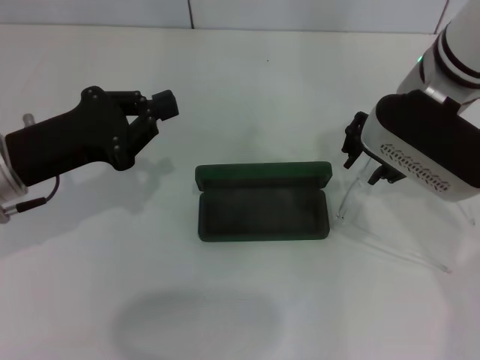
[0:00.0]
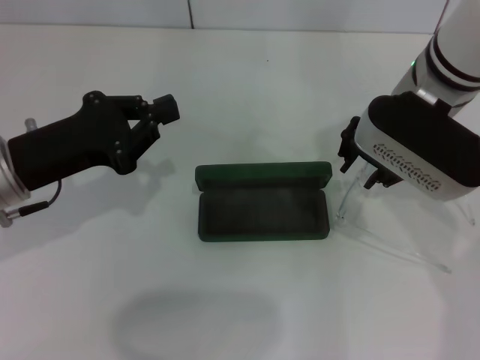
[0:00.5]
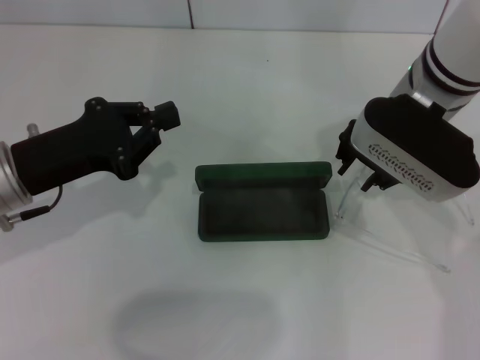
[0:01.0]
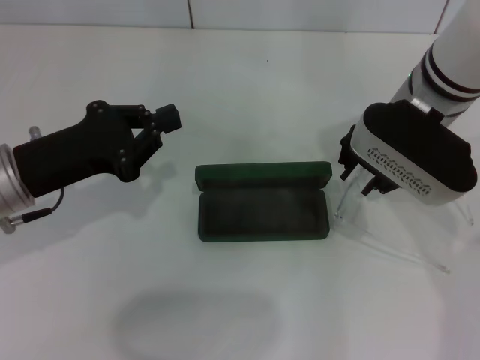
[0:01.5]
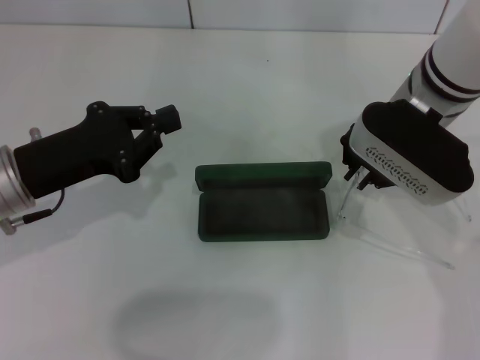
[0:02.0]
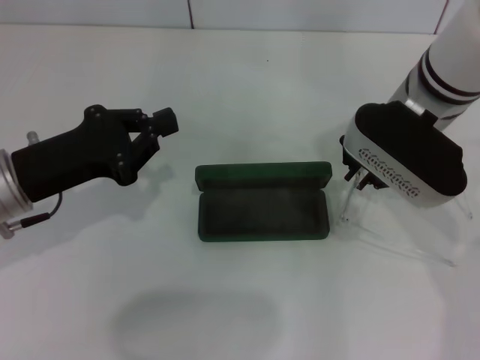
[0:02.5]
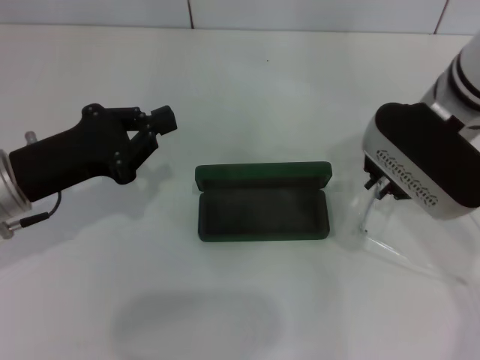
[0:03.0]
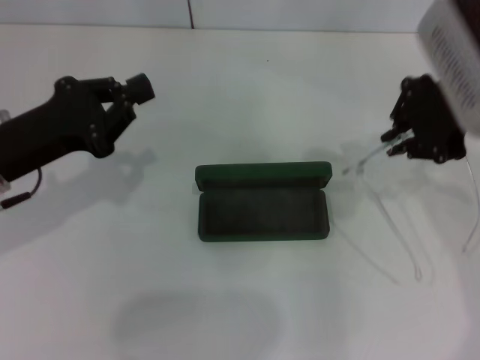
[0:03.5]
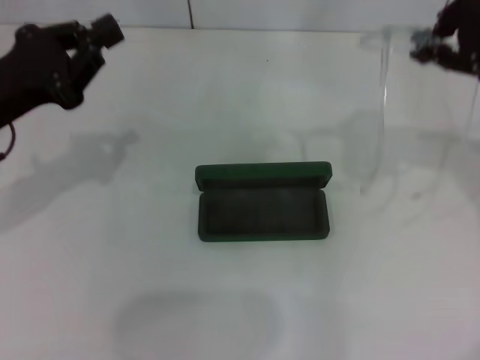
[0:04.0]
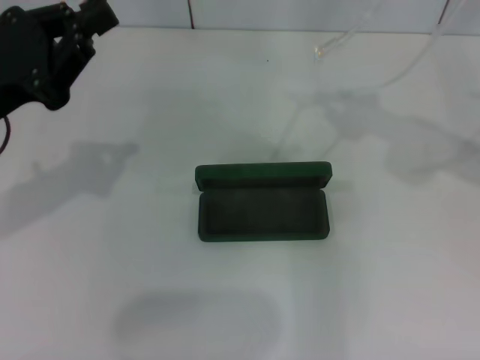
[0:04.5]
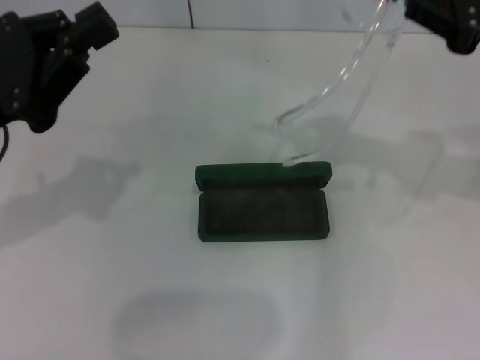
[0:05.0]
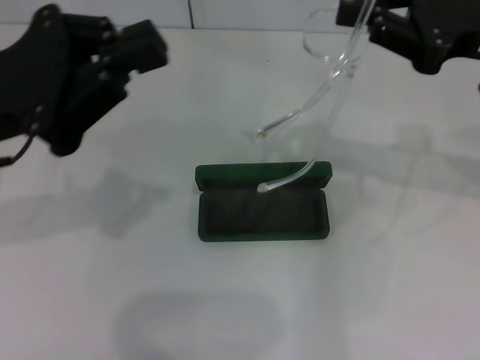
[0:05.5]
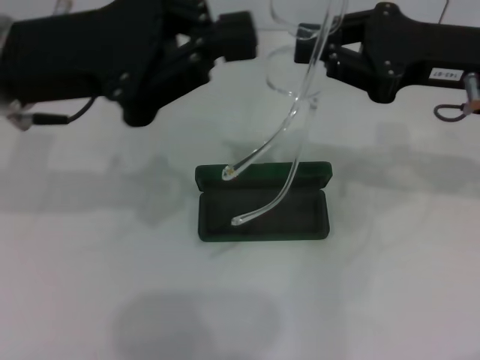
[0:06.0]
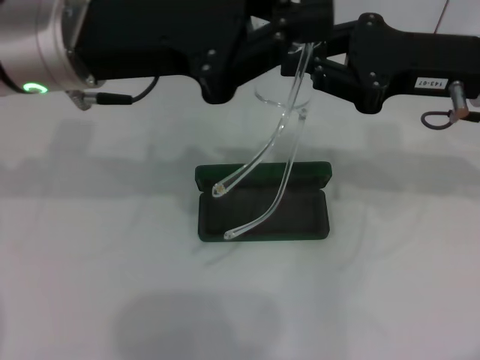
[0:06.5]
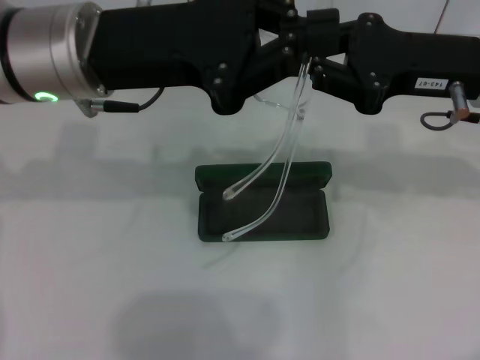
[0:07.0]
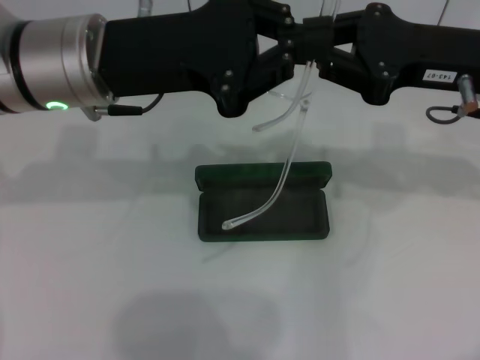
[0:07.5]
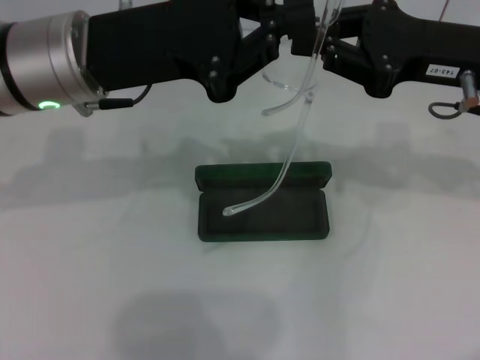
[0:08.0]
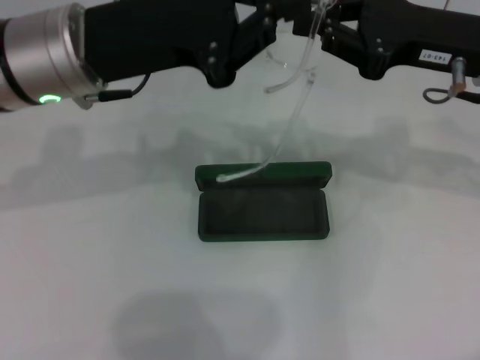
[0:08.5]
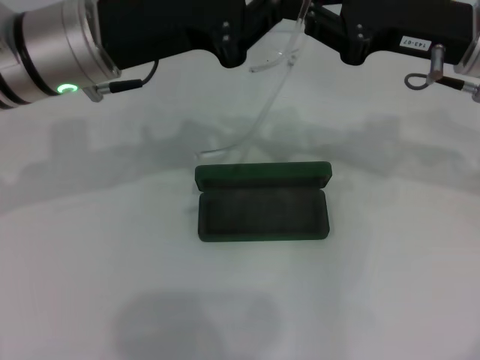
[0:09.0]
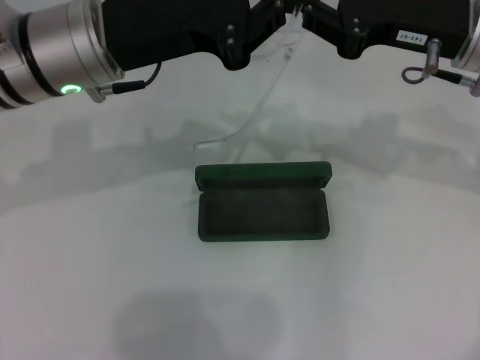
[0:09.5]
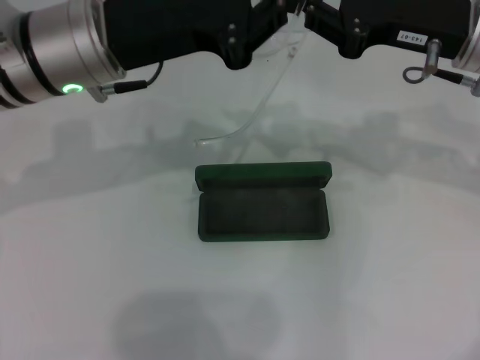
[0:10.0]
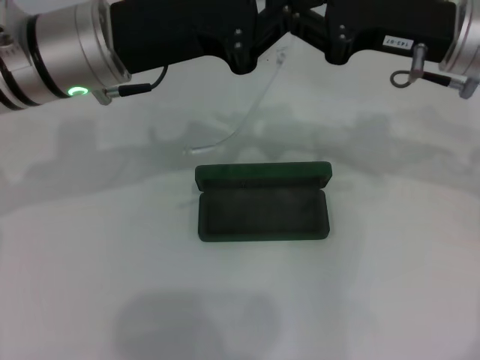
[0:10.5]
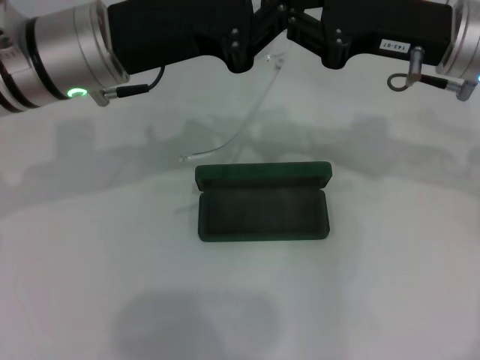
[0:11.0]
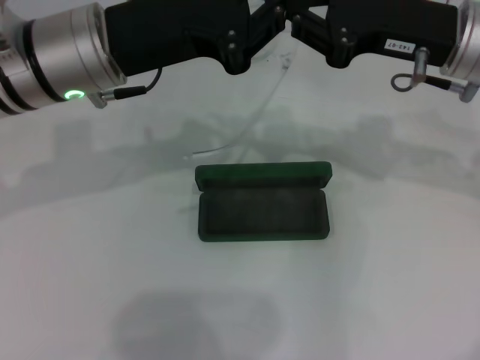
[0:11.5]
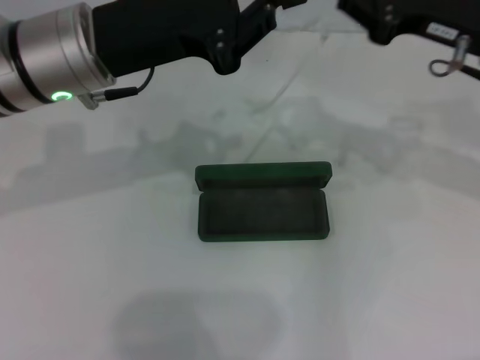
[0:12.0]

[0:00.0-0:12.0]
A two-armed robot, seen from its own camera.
Step, 0:00.0 to 0:02.0: Grab the eyeglass frame with your right hand.
0:00.0 to 0:02.0: The grippers move only a little.
0:02.0 to 0:04.0: The right gripper shifts about 20 cm upward and to the right; the left gripper shifts by about 5 cm.
0:04.0 to 0:06.0: The right gripper goes approximately 10 cm downward. Meanwhile the left gripper goes some 10 cm to the right and upward.
0:06.0 to 0:12.0: The grippers move only a little.

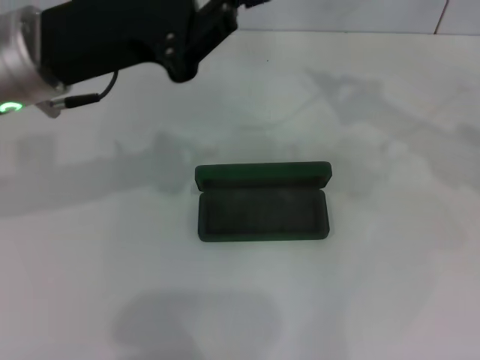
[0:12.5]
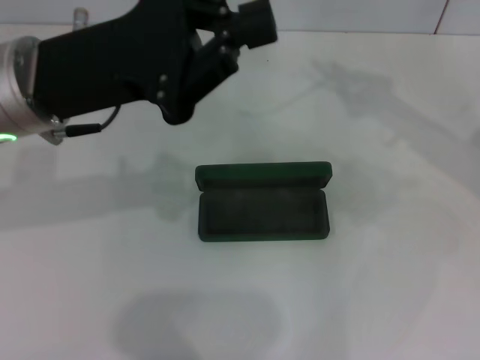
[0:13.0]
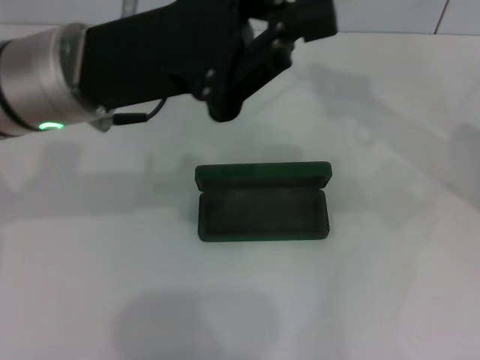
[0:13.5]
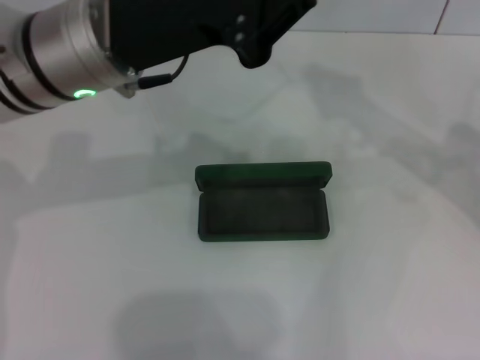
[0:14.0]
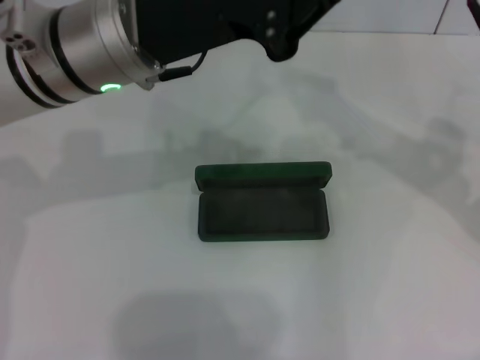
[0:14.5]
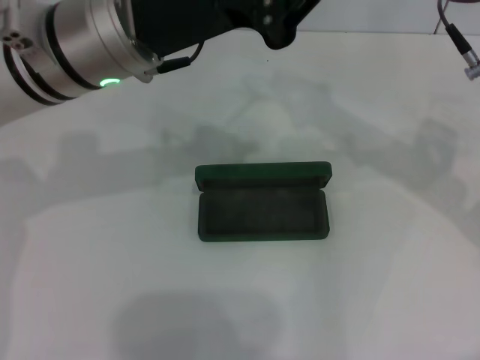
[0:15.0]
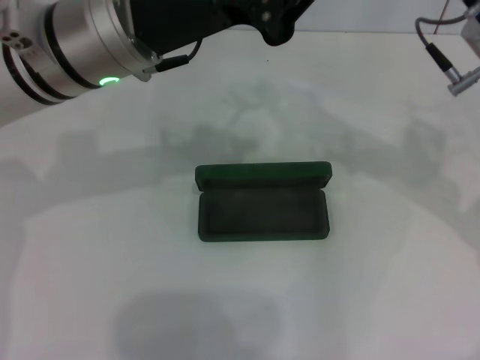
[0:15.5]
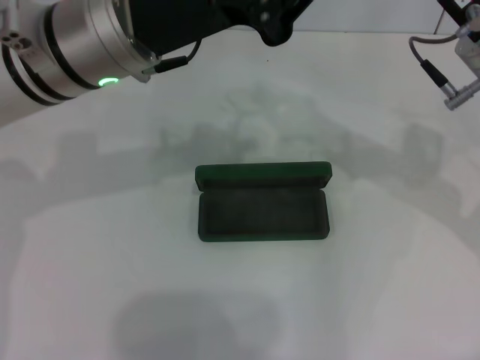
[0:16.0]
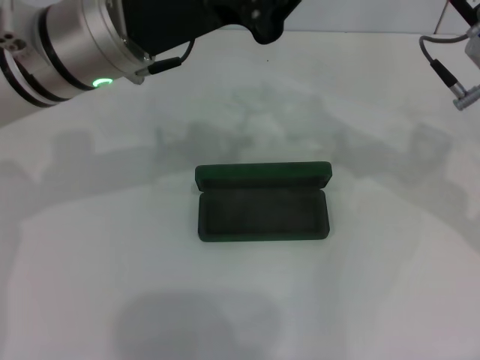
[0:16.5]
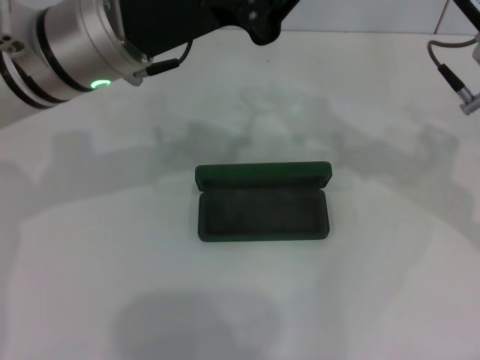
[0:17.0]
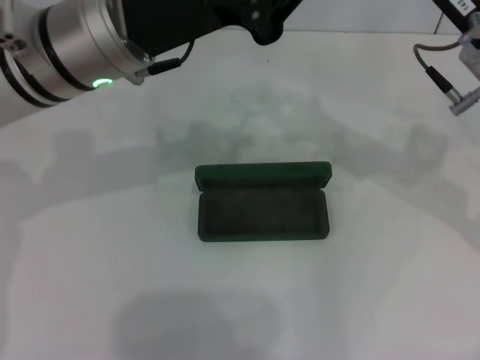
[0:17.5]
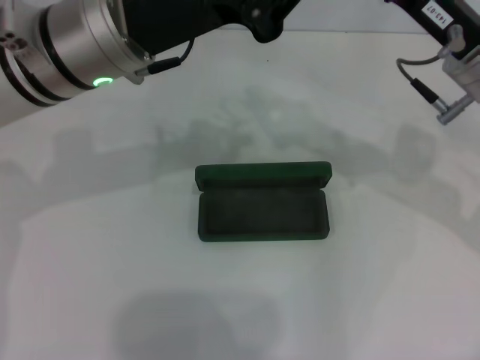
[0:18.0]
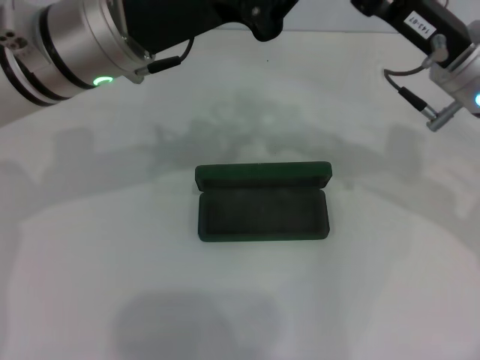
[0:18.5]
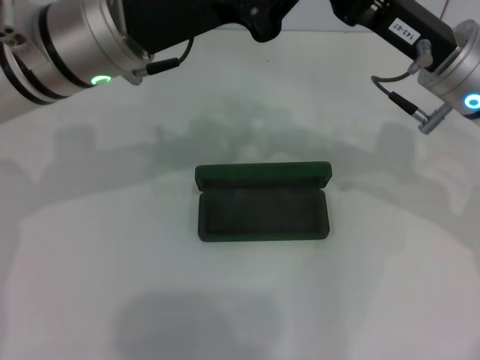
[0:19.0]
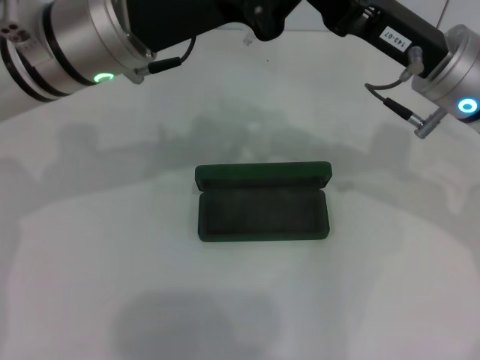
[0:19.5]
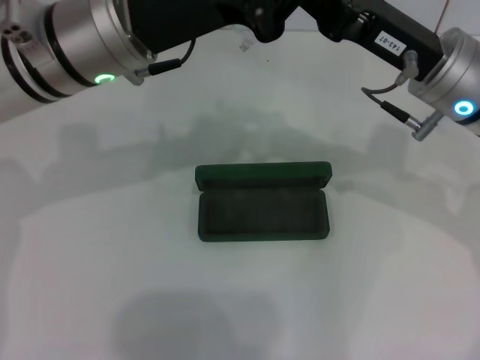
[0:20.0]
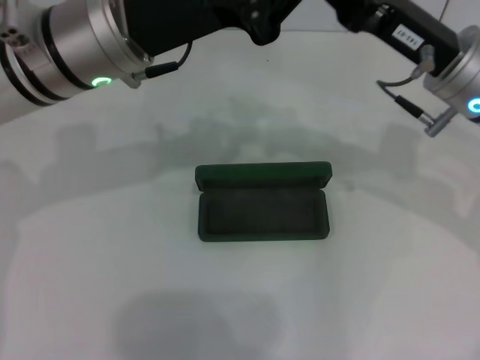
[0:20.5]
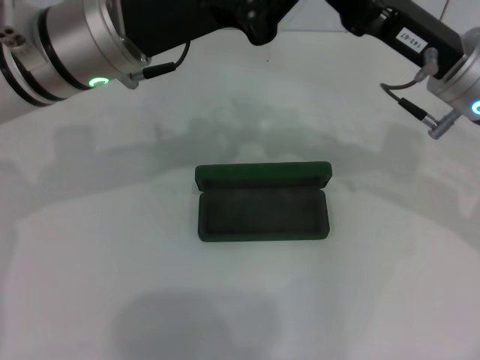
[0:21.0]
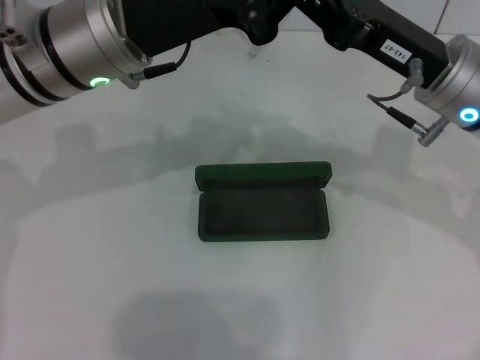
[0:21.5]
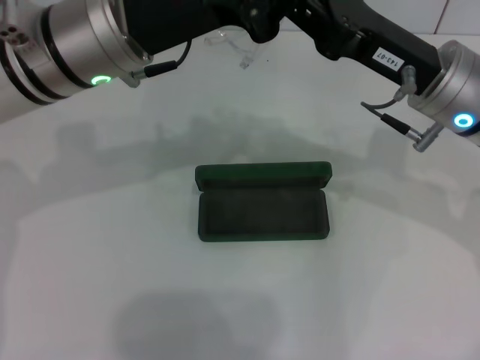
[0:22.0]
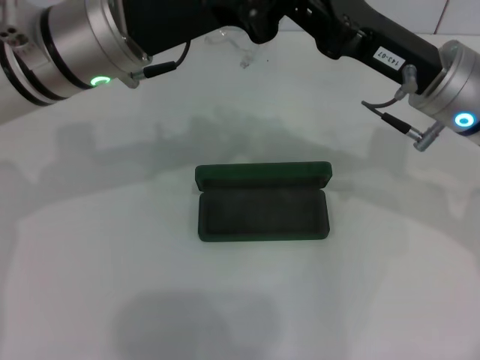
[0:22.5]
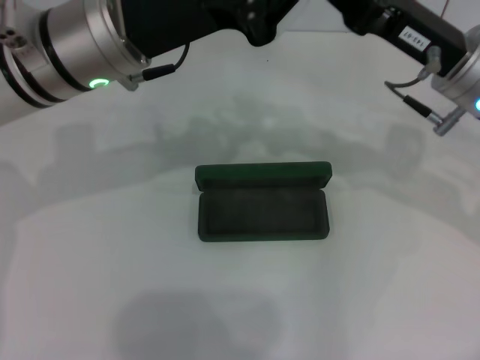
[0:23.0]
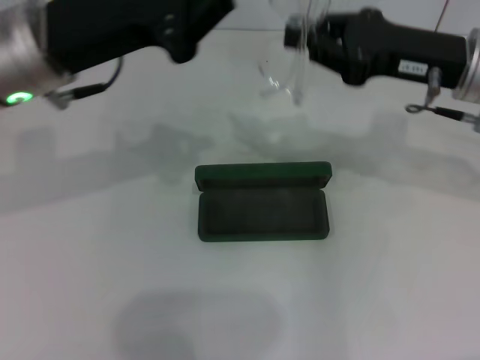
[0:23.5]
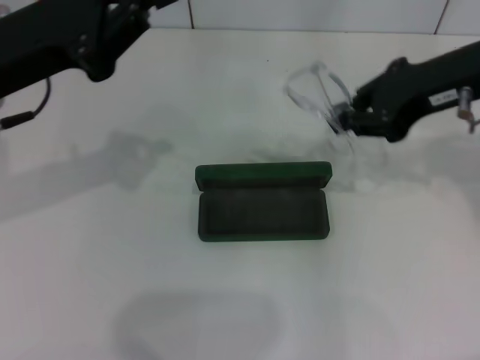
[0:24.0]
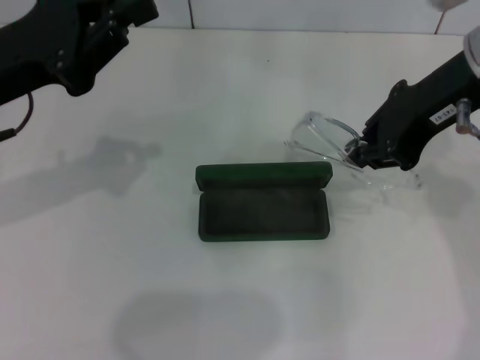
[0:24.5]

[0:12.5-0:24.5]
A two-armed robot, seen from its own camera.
Step, 0:12.5 to 0:23.0: Fold the frame with your left hand.
0:12.5 to 0:14.5: The right gripper is displaced to the left by roughly 5 cm. The left gripper heads to the right, covering some 5 cm.
0:14.5 to 0:18.5: The grippers stay close to where they were, moving slightly.
0:18.5 to 0:22.5: The grippers move only a little.
0:22.5 to 0:24.5: The right gripper goes about 10 cm upward, while the left gripper goes approximately 10 cm to the left.

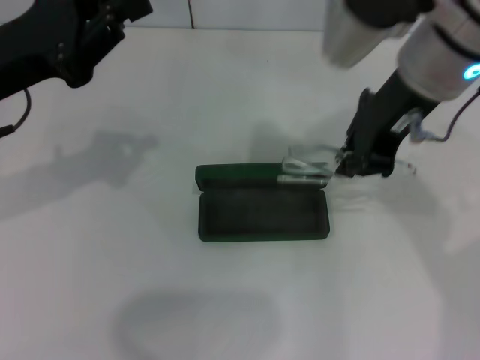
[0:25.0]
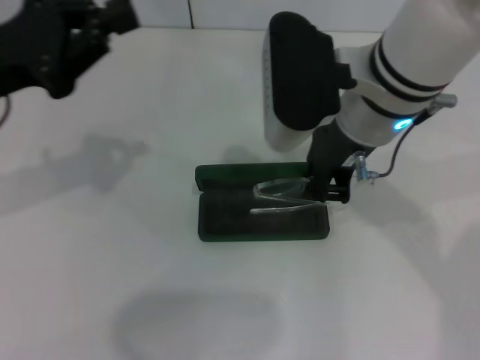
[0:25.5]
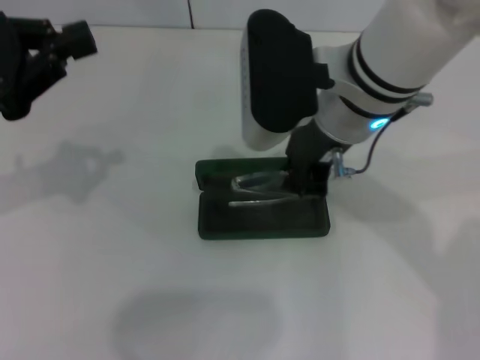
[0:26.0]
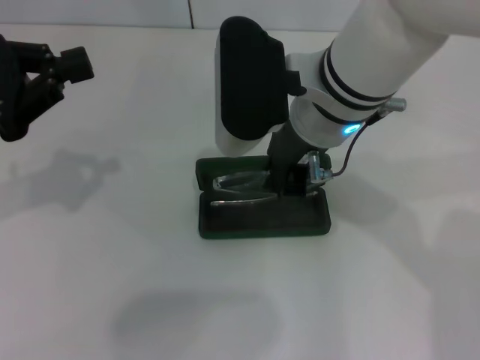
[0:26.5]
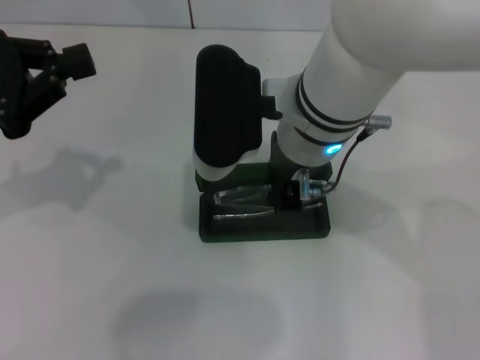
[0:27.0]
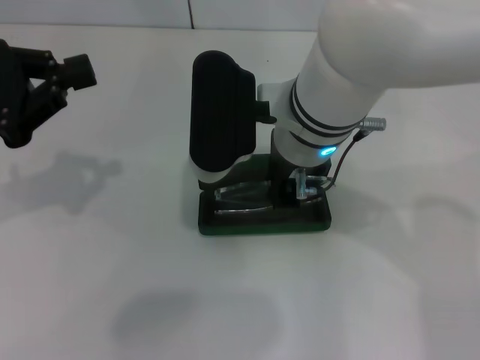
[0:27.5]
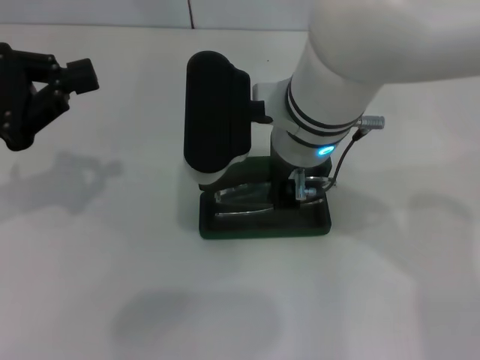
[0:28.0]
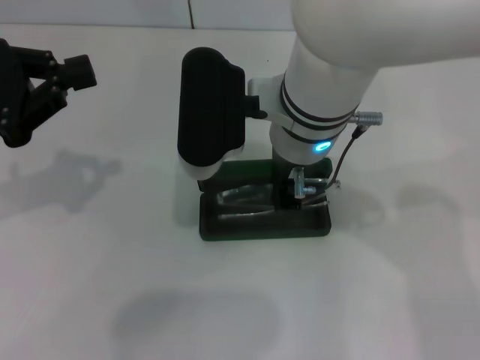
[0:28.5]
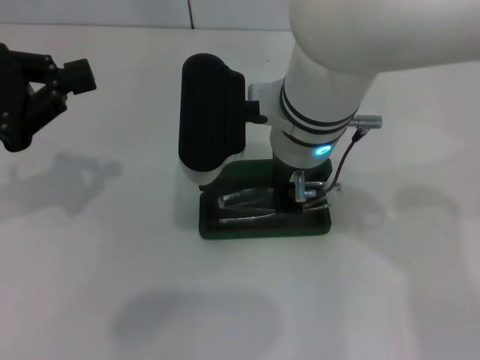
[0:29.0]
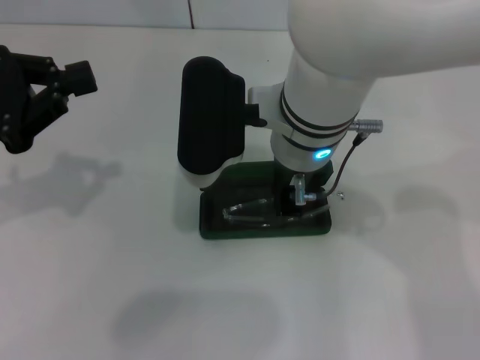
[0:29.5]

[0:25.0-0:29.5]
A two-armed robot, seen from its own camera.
0:25.0 to 0:27.0: The right gripper travels to the left and downward by about 10 cm. Meanwhile the left gripper moves to the left, roughly 5 cm.
0:27.0 to 0:29.5: The grippers stay close to where they were, moving slightly.
